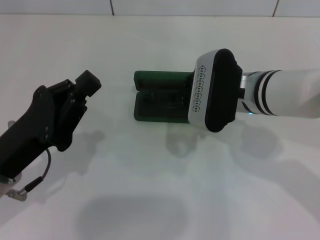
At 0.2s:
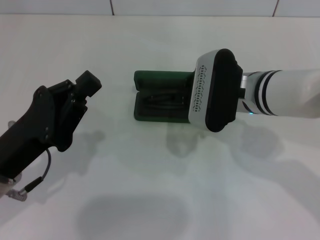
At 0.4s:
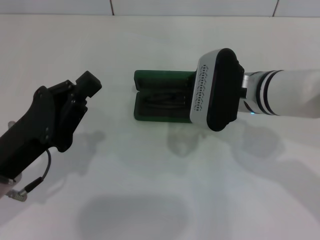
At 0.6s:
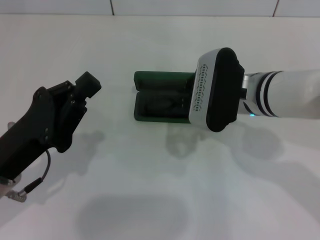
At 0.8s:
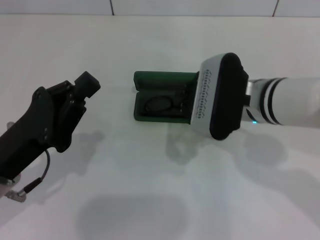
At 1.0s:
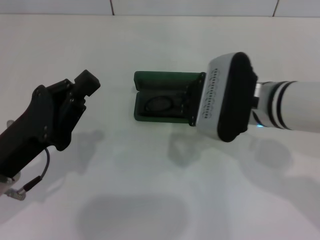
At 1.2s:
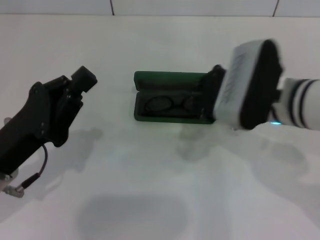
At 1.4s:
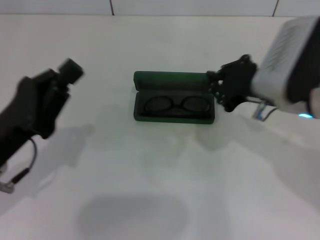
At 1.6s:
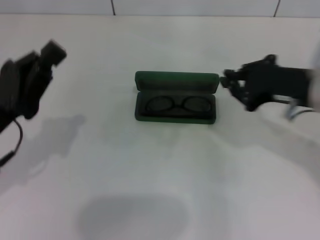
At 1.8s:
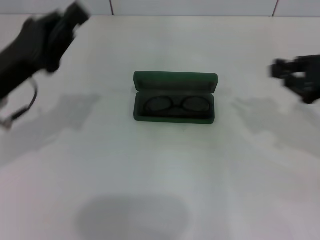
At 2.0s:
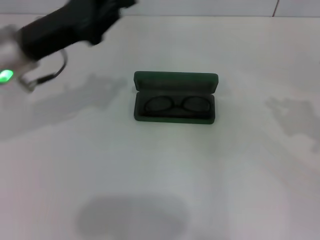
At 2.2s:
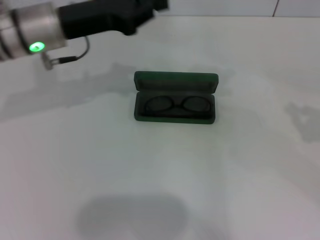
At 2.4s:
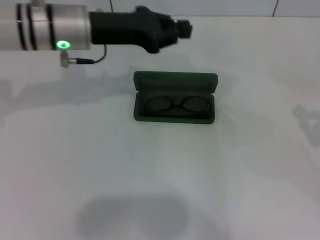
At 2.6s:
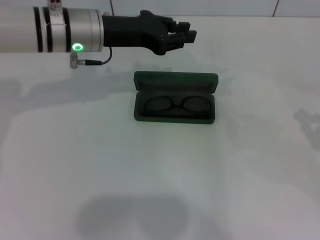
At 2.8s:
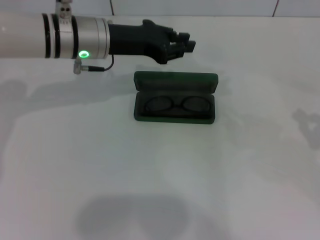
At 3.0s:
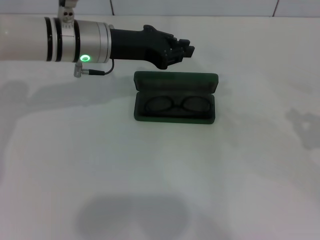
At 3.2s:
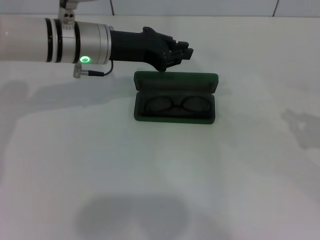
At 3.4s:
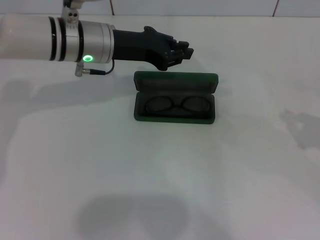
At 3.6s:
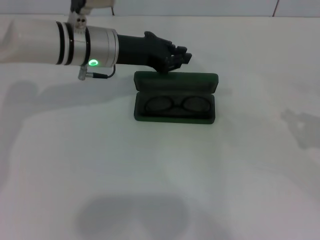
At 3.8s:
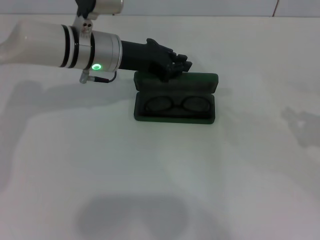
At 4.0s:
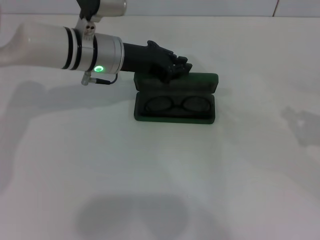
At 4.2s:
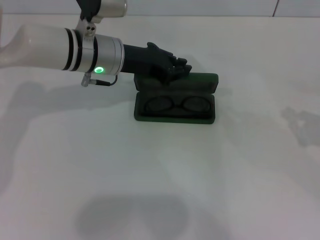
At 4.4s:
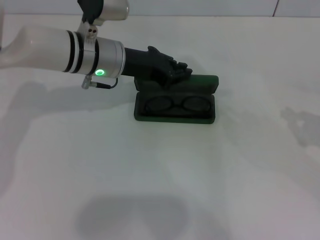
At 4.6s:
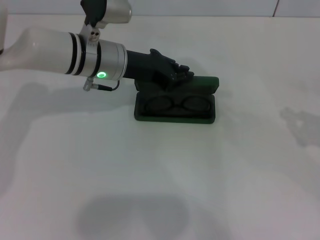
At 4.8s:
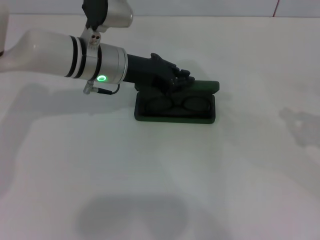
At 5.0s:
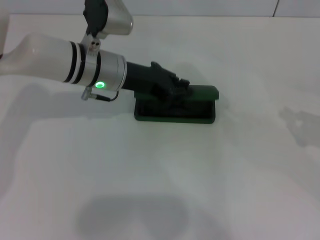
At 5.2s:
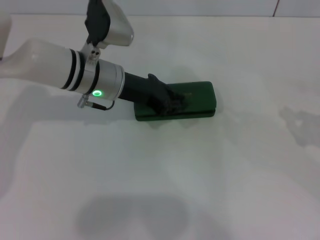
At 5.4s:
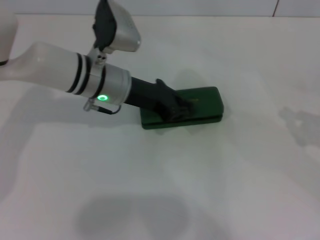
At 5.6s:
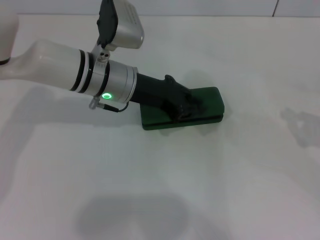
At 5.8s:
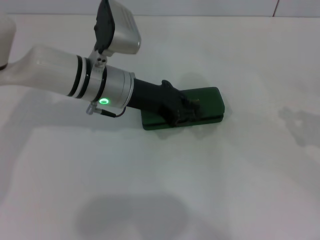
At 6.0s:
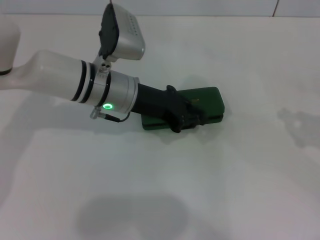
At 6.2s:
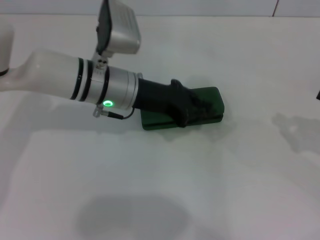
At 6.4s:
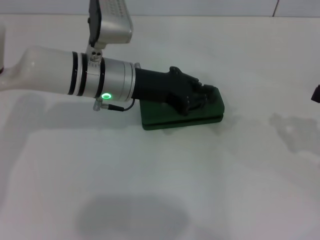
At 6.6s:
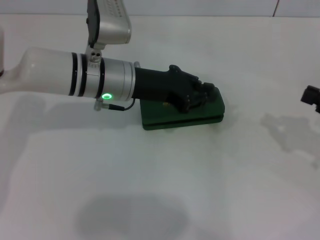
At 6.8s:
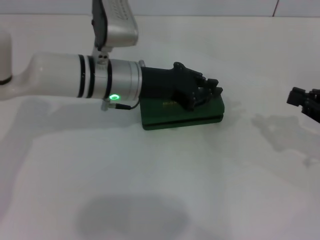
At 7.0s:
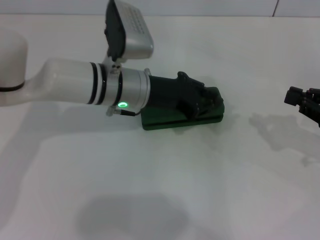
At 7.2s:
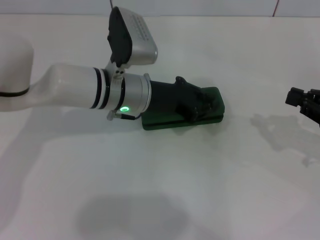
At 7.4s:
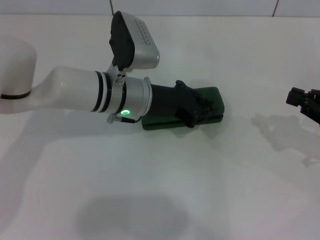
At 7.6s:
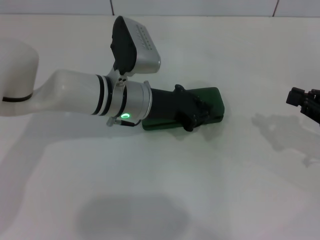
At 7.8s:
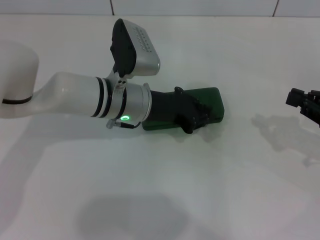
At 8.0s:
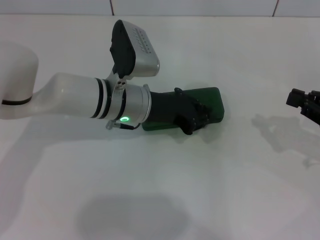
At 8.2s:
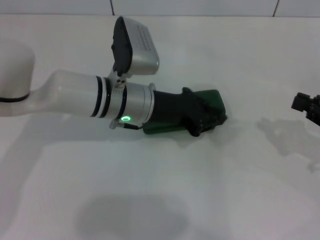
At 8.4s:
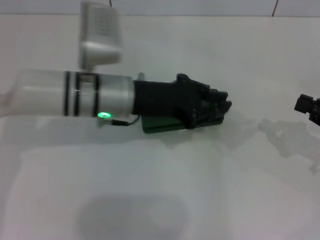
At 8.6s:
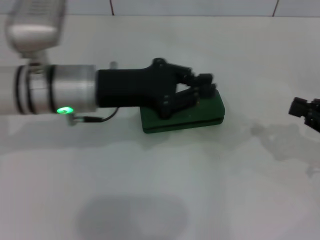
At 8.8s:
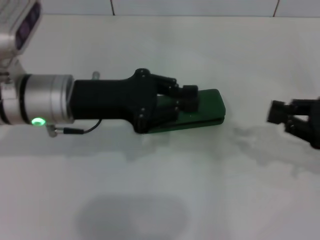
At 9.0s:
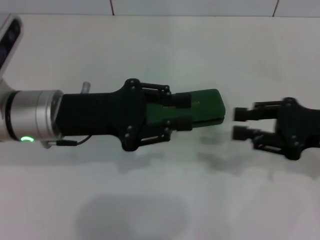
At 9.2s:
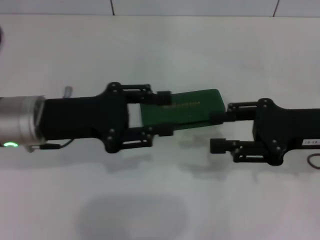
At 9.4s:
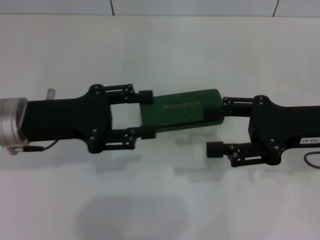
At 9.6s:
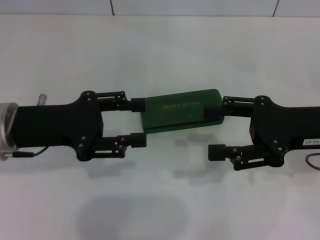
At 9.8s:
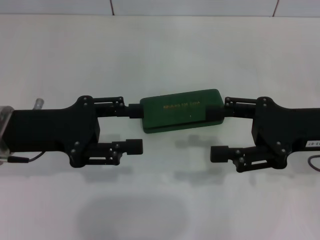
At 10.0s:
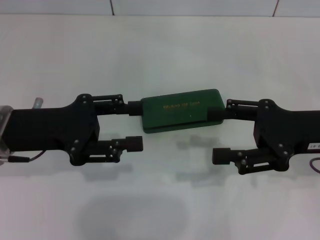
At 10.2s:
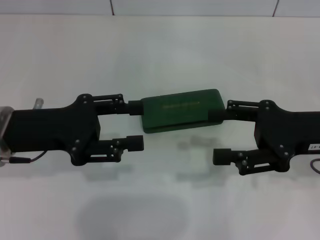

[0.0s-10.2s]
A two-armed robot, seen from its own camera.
Step, 0.8s to 5.0s: Close the glasses case with your left hand.
0.0s to 1.4s: The right gripper is displaced to the right by approximately 5 cm.
1.4s to 3.0s: The left gripper is displaced forward and to the right by about 20 cm. The right gripper heads to the right, covering approximately 20 cm.
3.0s to 5.8s: There are only small adjustments of the grippers.
5.8s to 7.2s: The grippers make only small movements.
7.2s to 8.8s: The left gripper moves to the left, backward and upward, some 10 cm.
8.8s to 10.2s: The grippers both shift to the left by about 5 cm. The right gripper opens. Meanwhile the left gripper opens.

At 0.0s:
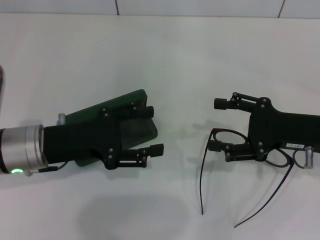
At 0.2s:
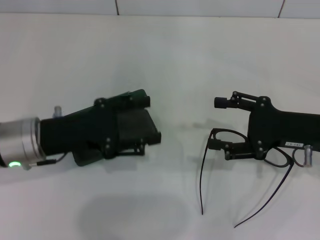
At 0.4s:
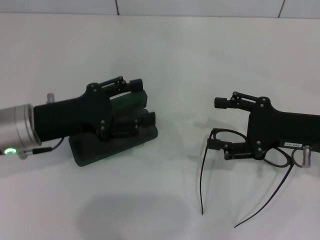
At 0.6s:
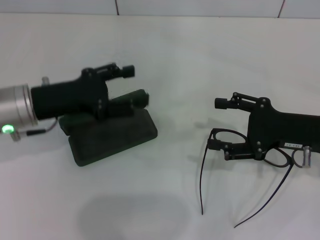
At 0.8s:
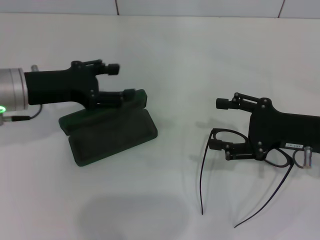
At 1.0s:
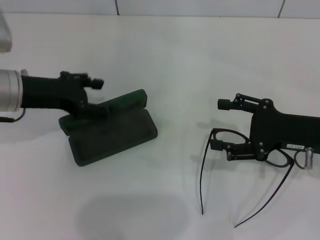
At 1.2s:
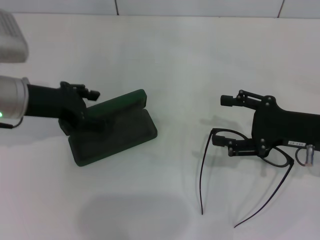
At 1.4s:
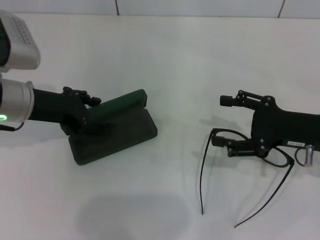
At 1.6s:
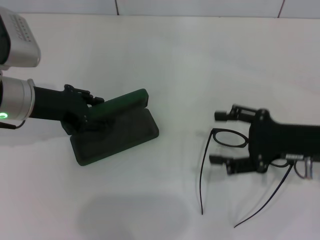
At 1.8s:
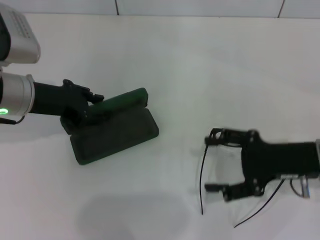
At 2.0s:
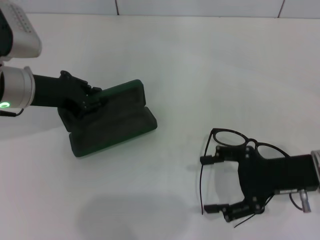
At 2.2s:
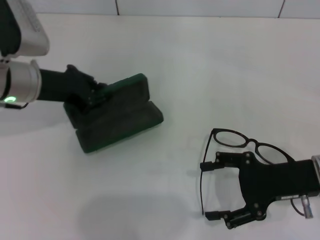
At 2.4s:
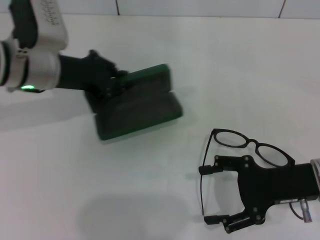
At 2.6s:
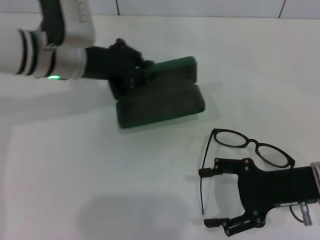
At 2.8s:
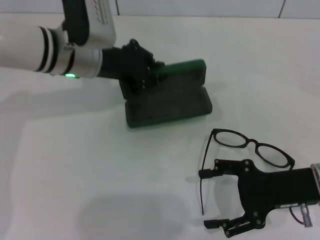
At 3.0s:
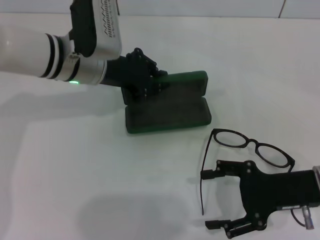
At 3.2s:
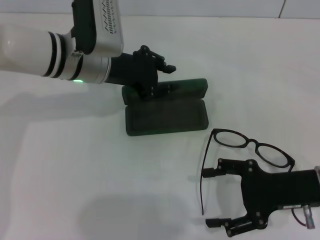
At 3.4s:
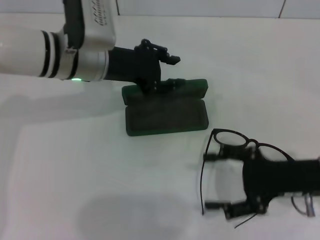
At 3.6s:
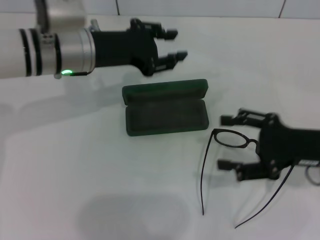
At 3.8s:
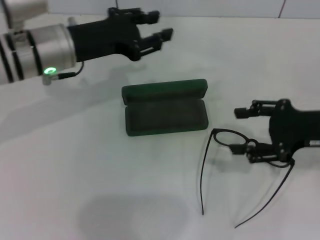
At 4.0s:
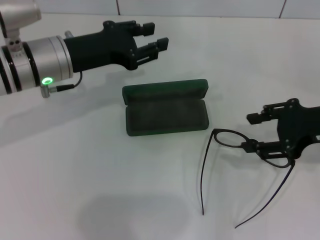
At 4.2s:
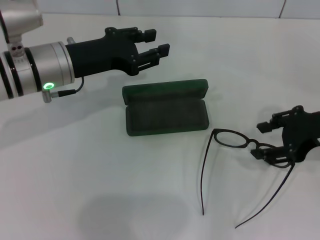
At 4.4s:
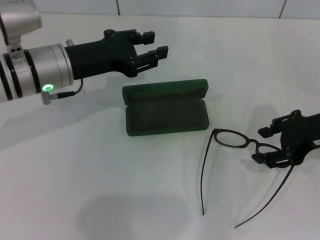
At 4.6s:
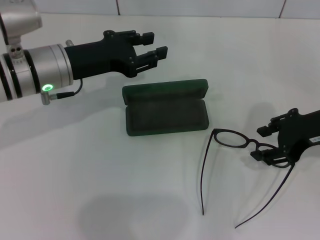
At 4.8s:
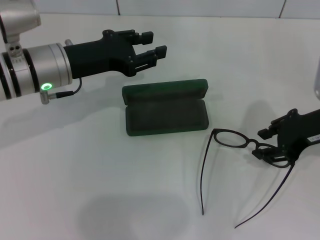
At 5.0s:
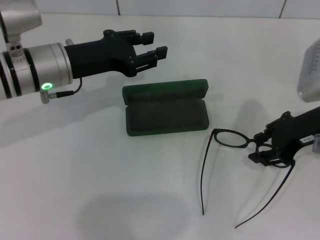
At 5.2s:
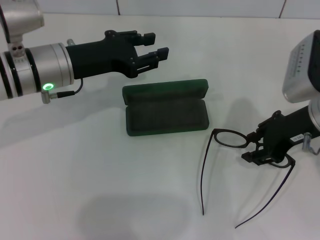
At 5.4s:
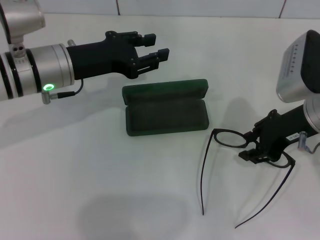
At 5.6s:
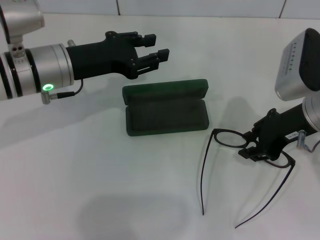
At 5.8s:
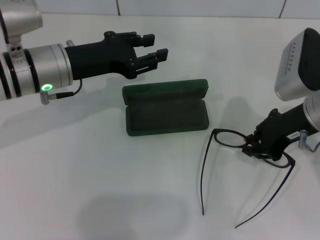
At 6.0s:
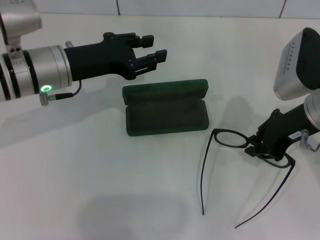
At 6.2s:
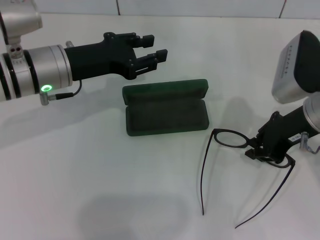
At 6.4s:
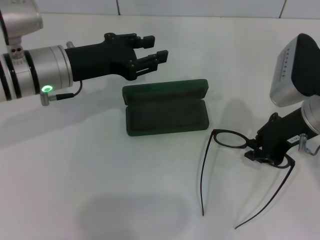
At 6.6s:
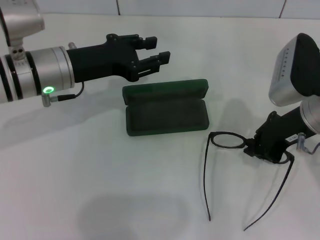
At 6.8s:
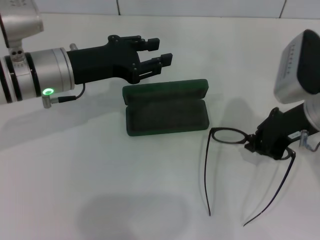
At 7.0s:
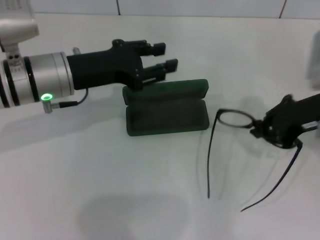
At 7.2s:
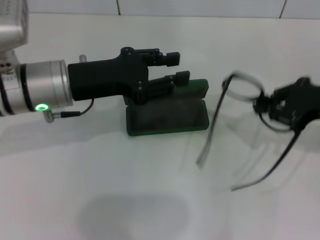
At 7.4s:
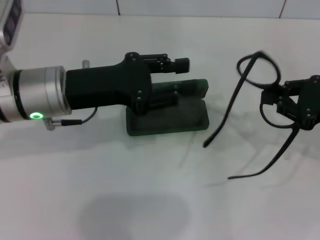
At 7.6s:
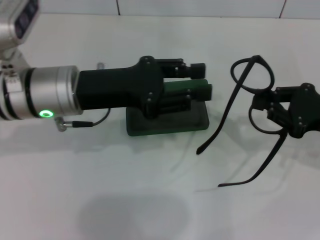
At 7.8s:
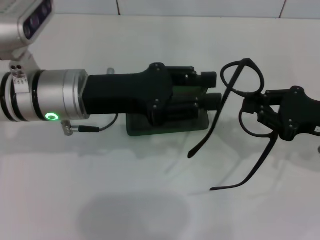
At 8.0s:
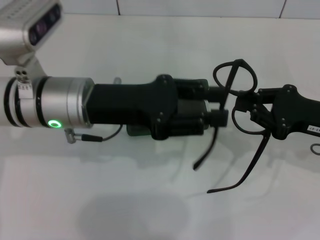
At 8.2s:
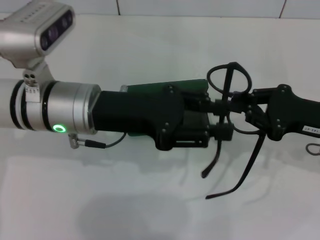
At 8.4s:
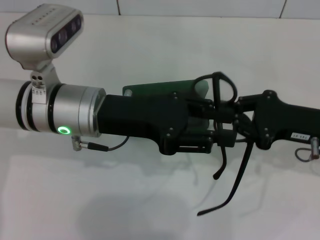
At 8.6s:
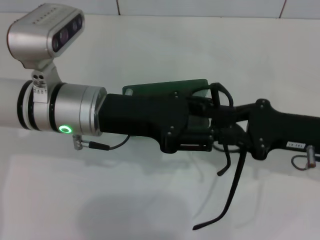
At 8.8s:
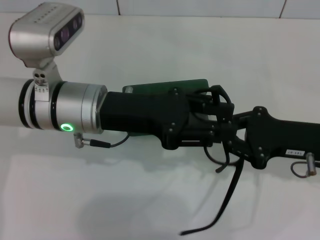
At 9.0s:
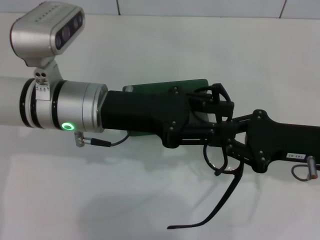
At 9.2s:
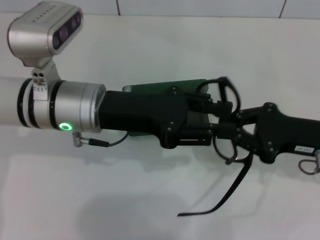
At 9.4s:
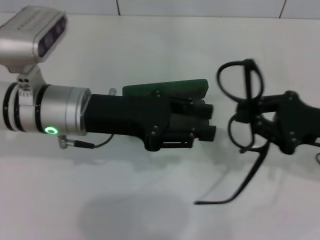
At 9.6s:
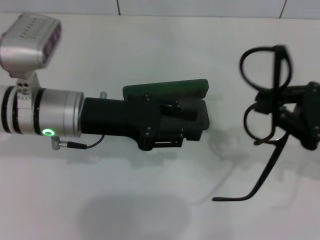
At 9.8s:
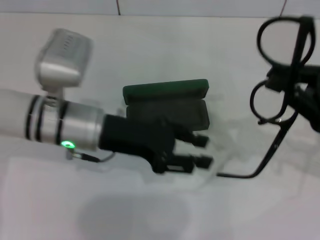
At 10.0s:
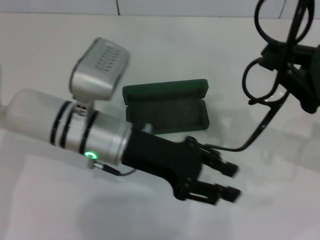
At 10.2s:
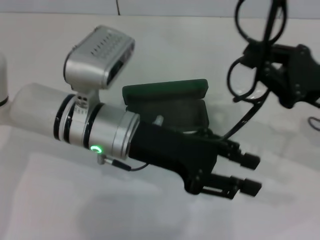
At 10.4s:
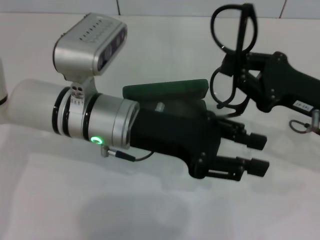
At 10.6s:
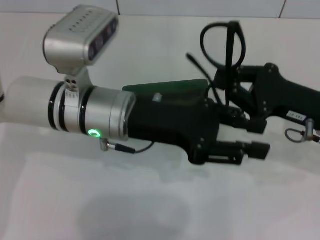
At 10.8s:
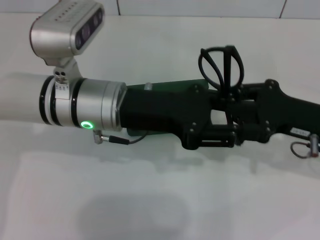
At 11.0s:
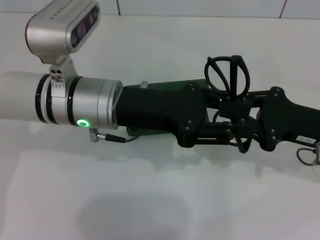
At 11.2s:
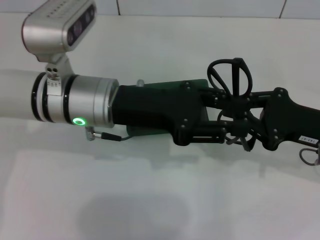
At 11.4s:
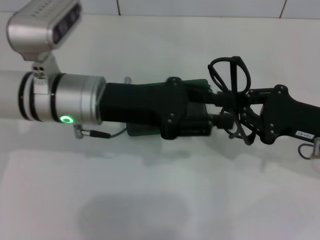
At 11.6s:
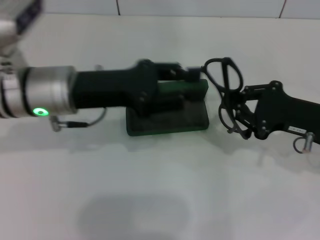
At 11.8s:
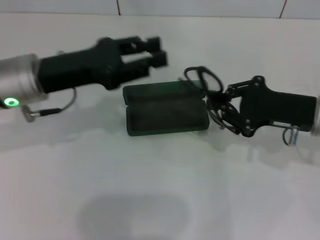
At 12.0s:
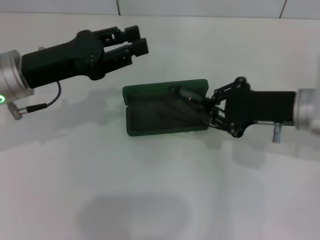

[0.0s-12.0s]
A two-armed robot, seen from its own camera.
Step, 0.0s to 1.8s: Grab the glasses case with your left hand.
Step, 2.0s to 3.2s: Place the glasses case in the center of the table with your left hand.
Step, 3.4s to 6.6s: Grab the eyeglass frame with your right hand.
Step, 6.8s to 11.2s: Lift the glasses with your right hand.
0.0s to 1.6s: The left gripper is displaced forward by approximately 5 cm.
1.6s to 3.0s: The left gripper heads to the right and forward, covering some 10 cm, and closes its fingers.
3.0s to 4.4s: The right gripper travels upward and forward by roughly 10 cm. The left gripper changes place by approximately 5 cm, and opens.
4.4s to 6.0s: The right gripper ends up about 5 cm from where it was, and closes its fingers.
6.0s to 7.6s: The left gripper shifts by approximately 5 cm. Meanwhile the right gripper shifts about 10 cm to the right.
7.6s to 9.0s: The right gripper goes some 5 cm to the left.
10.4s to 12.0s: The left gripper travels to the left by approximately 15 cm.
